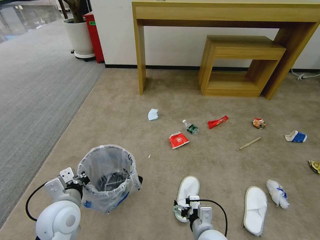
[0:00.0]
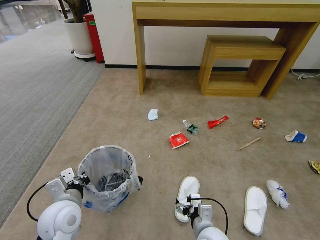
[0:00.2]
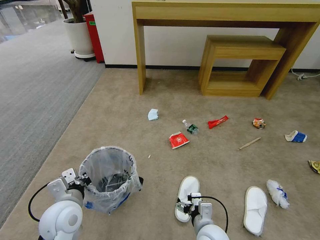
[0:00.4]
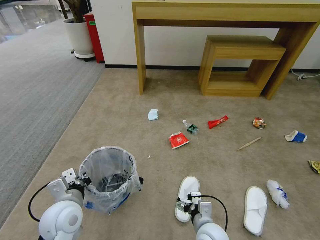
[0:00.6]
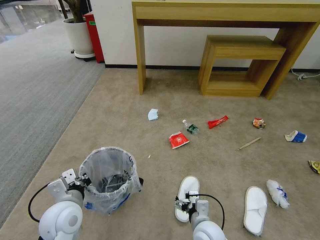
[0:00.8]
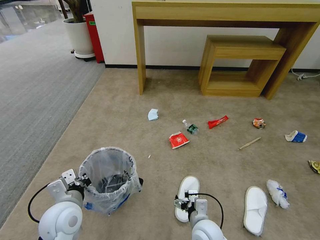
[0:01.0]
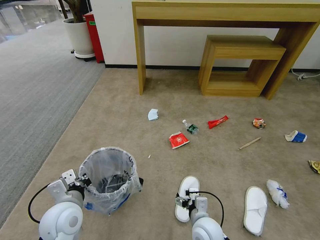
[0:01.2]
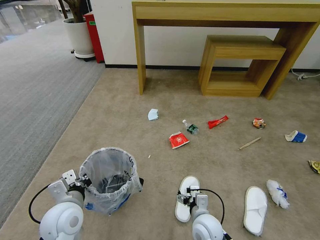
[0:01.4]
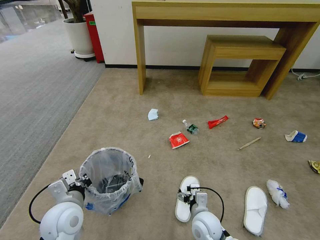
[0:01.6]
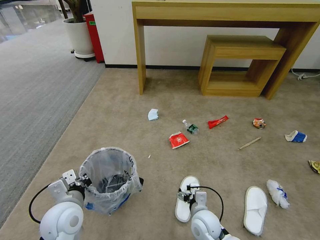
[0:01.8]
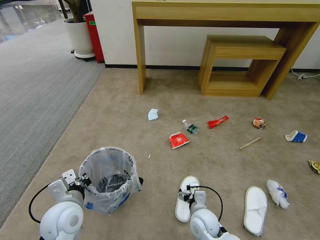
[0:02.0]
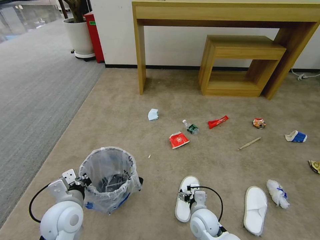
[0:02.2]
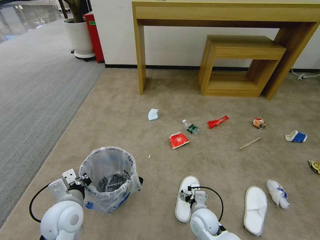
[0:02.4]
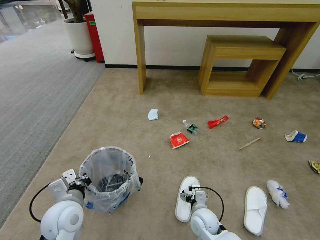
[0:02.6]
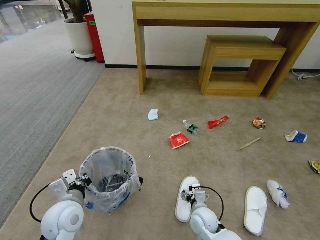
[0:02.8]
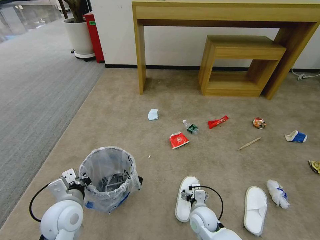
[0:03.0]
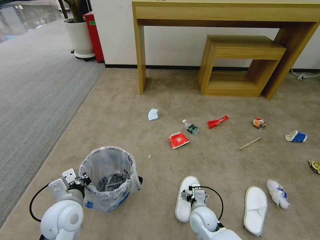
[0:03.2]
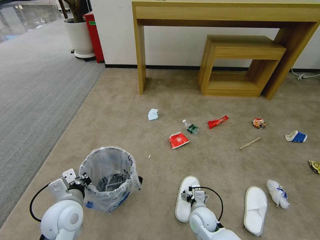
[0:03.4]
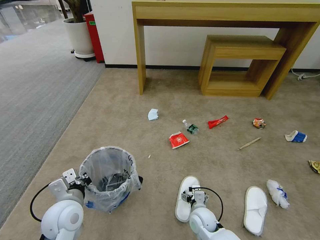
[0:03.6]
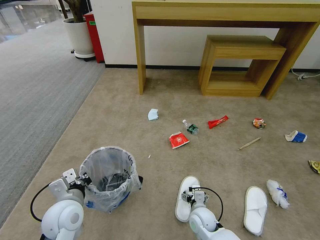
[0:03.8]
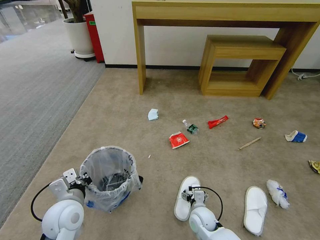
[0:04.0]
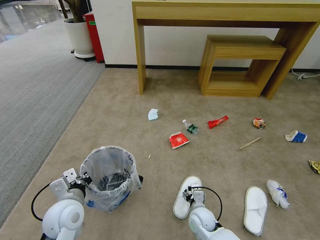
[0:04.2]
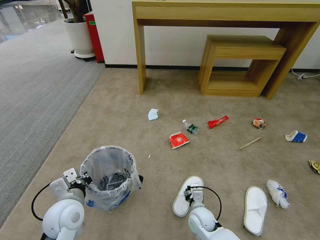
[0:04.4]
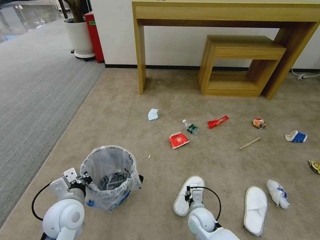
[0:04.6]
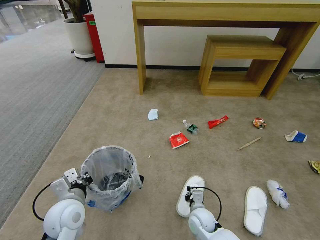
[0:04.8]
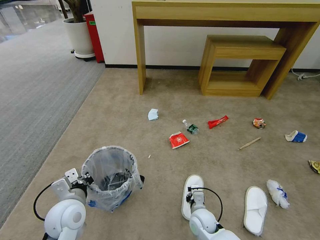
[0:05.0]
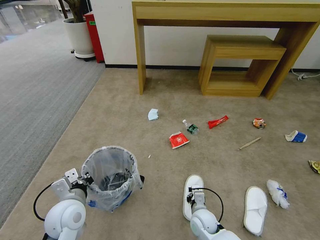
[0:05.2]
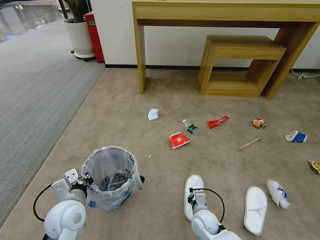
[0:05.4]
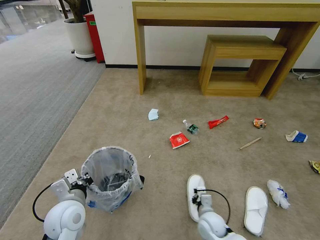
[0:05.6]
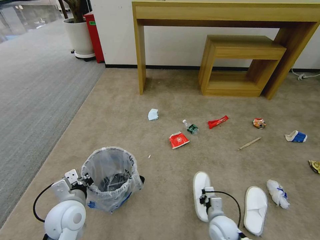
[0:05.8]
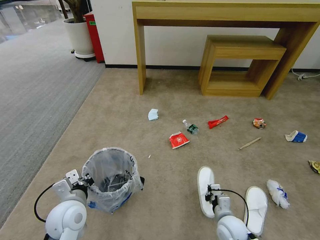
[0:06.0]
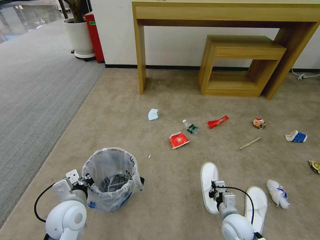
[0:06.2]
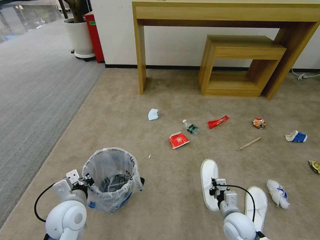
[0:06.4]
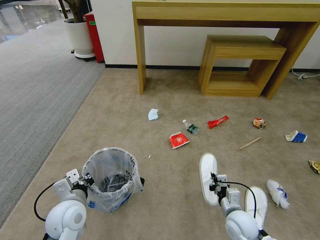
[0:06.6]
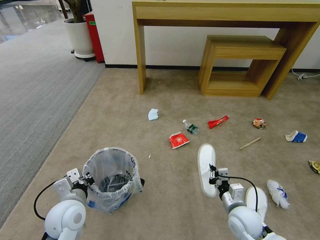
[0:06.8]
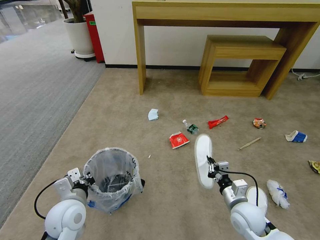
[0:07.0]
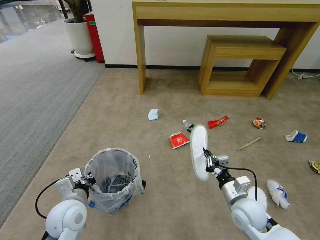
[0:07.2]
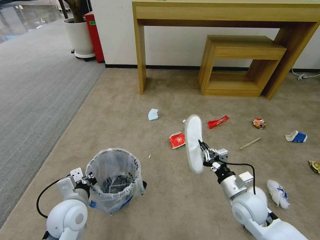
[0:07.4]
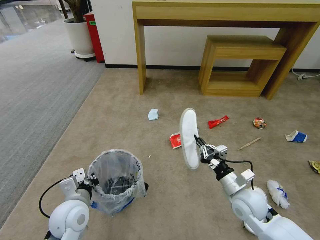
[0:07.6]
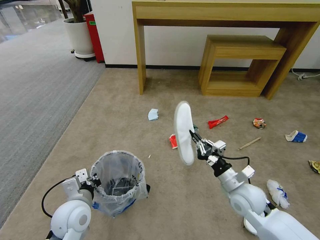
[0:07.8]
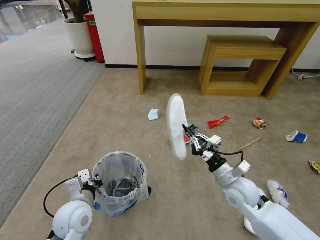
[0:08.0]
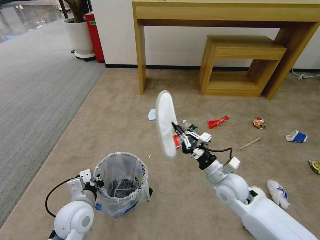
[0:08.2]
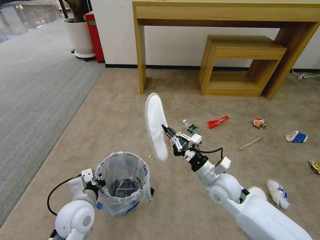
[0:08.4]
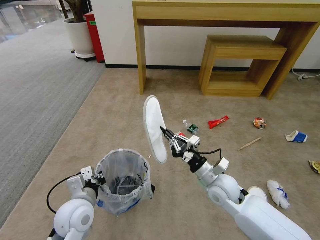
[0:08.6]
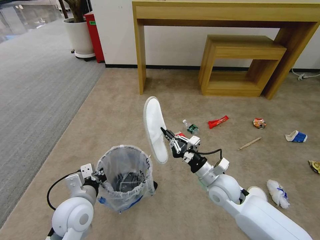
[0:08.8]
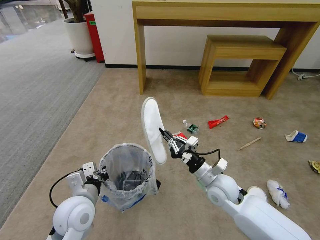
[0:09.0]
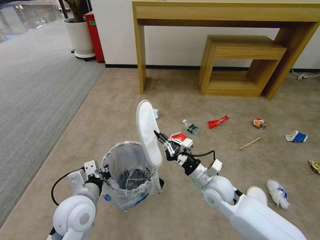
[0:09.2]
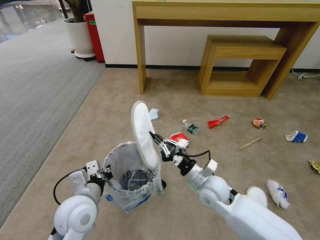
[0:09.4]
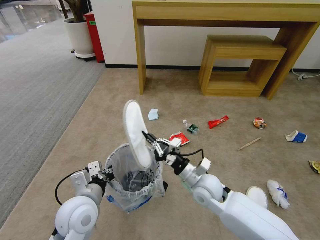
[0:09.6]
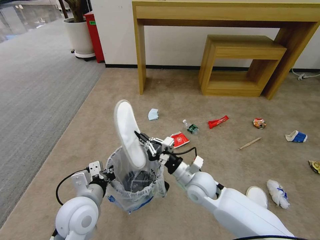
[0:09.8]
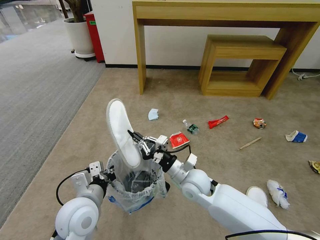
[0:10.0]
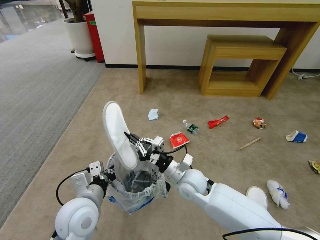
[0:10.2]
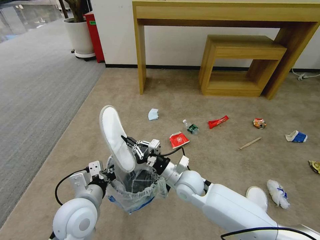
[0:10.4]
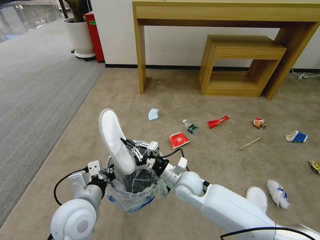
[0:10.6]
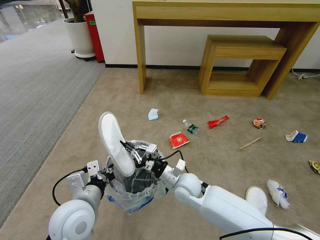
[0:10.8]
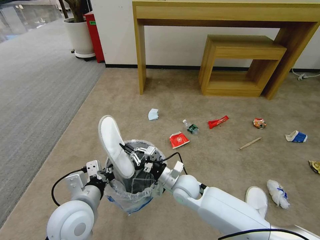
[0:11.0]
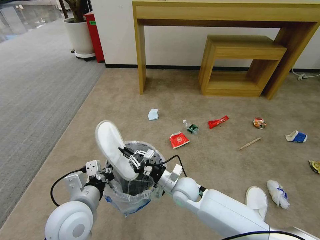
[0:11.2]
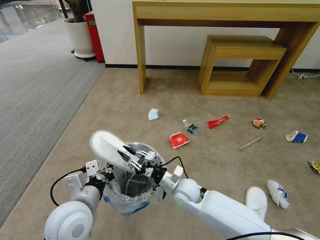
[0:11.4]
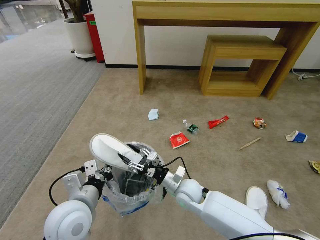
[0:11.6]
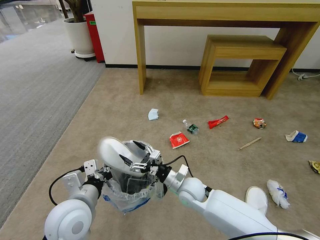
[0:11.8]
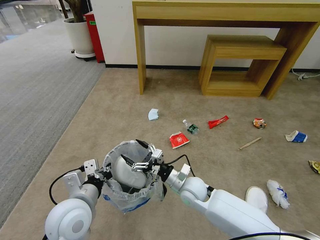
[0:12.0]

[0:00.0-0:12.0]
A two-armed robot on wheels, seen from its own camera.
Task of the whole recording: Pick up the trash bin and place the garbage on the floor into it.
0:00.0 to 0:01.6: The right gripper is displaced forward by some 5 cm.
0:01.6 to 0:03.0: The right gripper moves downward, some 5 cm.
0:03.0 to 0:04.4: The right gripper closes.
0:04.4 to 0:06.0: The right gripper is displaced to the right by about 10 cm, and closes up.
0:06.0 to 0:07.6: The right gripper travels upward by roughly 15 cm.
0:07.6 to 0:09.0: The right gripper goes some 10 cm to the left.
0:09.0 to 0:10.4: The right gripper moves to the left, some 10 cm.
0:10.4 to 0:12.0: The right gripper opens up.

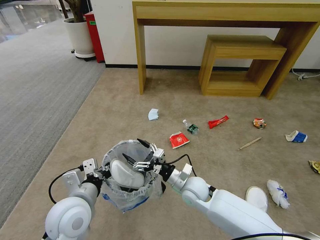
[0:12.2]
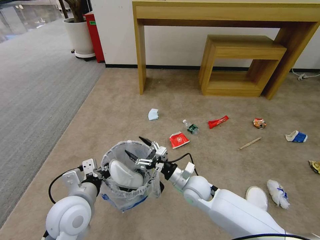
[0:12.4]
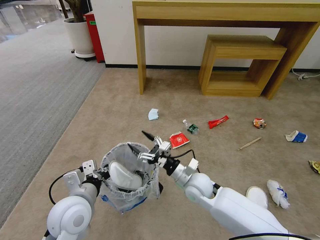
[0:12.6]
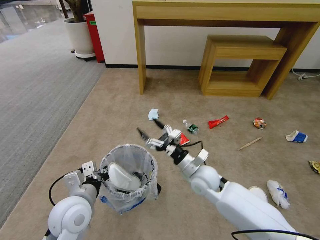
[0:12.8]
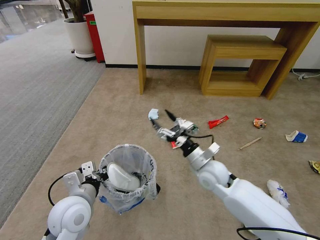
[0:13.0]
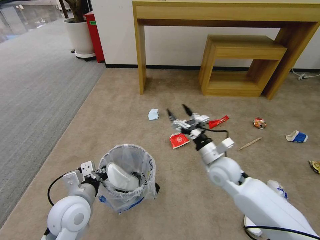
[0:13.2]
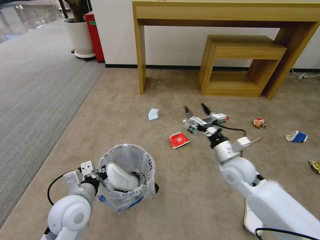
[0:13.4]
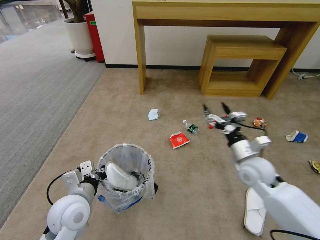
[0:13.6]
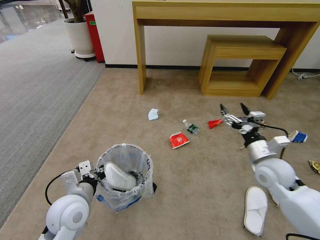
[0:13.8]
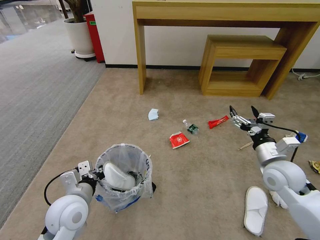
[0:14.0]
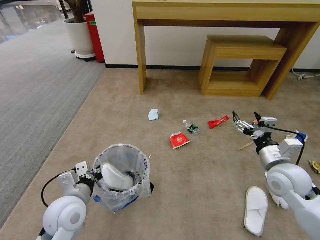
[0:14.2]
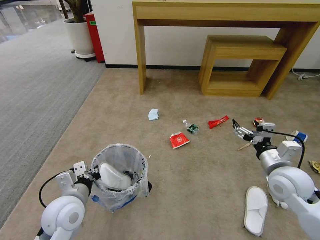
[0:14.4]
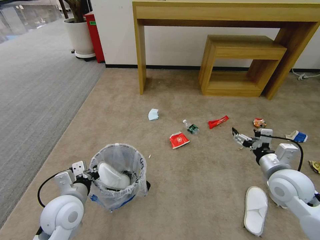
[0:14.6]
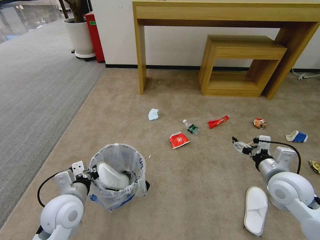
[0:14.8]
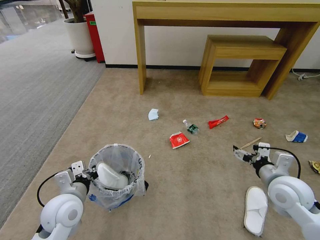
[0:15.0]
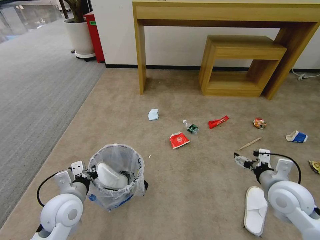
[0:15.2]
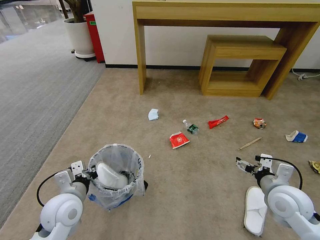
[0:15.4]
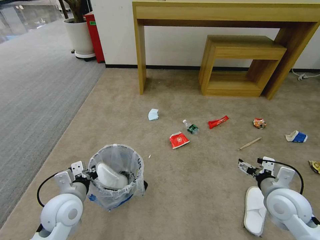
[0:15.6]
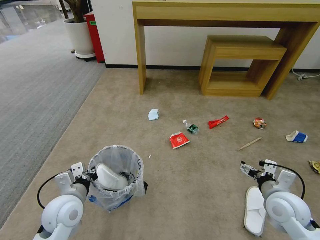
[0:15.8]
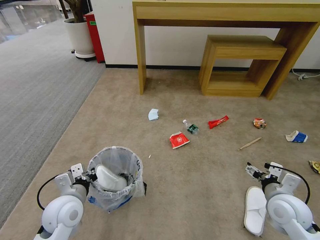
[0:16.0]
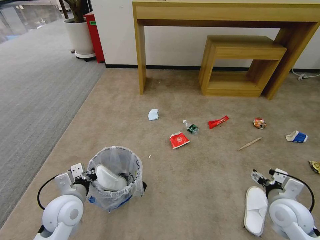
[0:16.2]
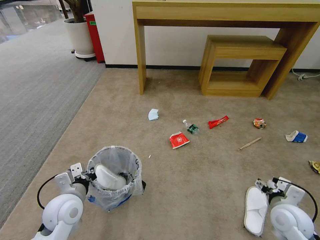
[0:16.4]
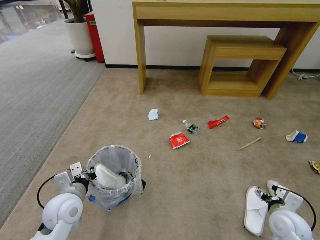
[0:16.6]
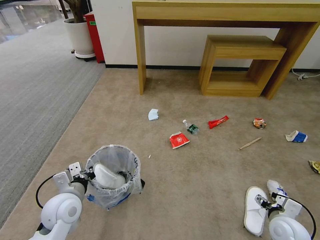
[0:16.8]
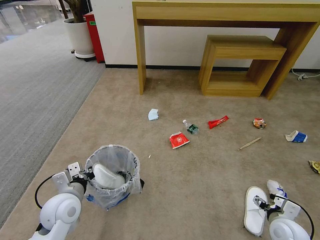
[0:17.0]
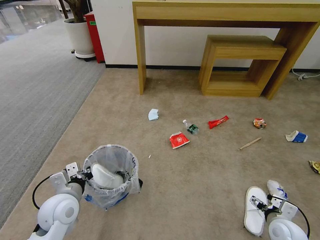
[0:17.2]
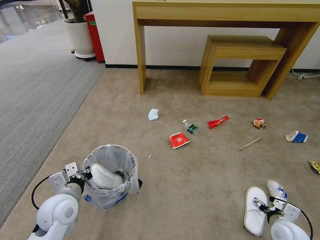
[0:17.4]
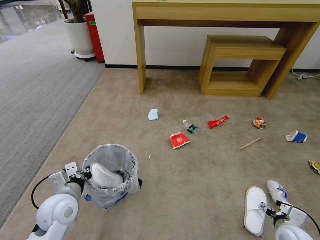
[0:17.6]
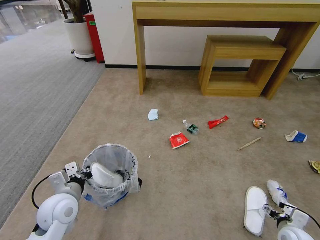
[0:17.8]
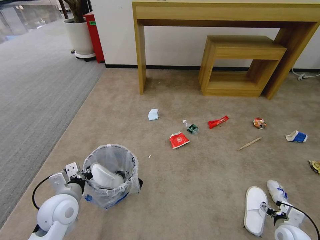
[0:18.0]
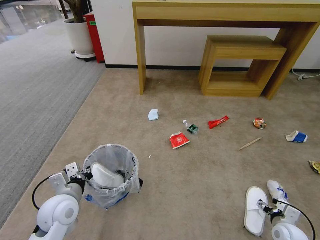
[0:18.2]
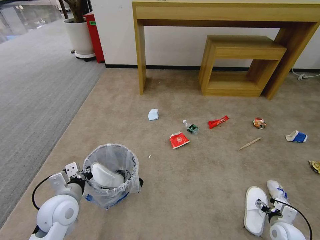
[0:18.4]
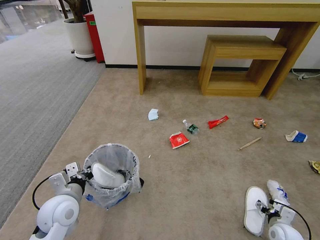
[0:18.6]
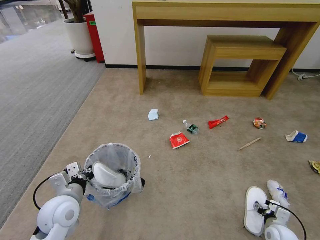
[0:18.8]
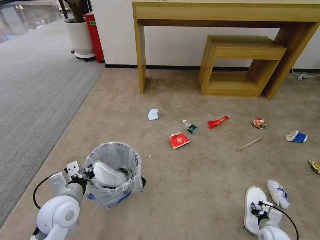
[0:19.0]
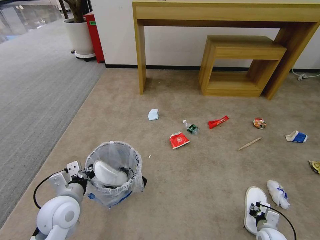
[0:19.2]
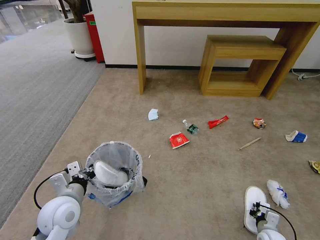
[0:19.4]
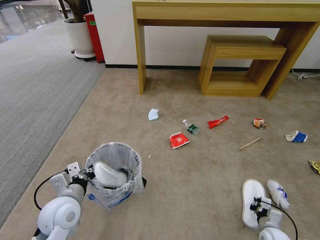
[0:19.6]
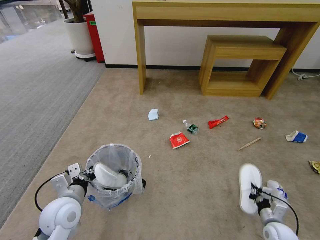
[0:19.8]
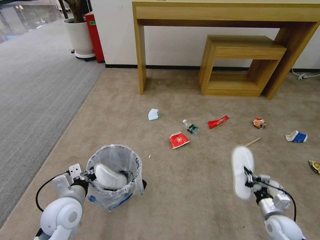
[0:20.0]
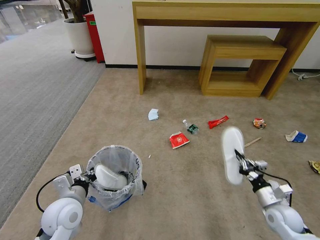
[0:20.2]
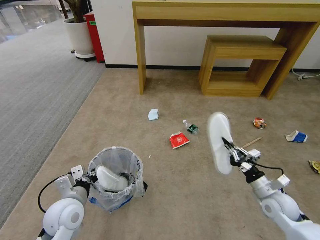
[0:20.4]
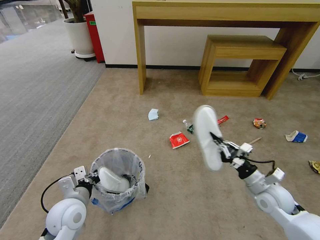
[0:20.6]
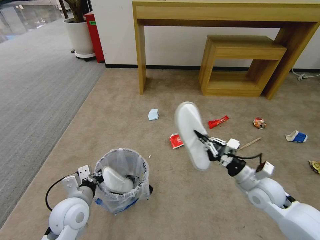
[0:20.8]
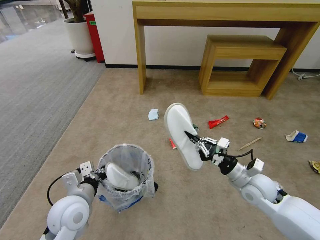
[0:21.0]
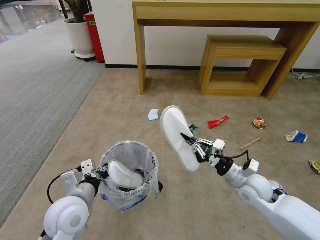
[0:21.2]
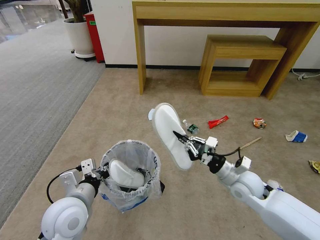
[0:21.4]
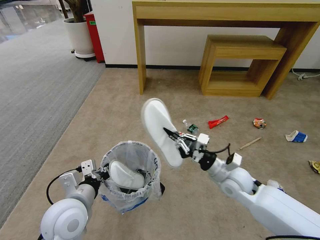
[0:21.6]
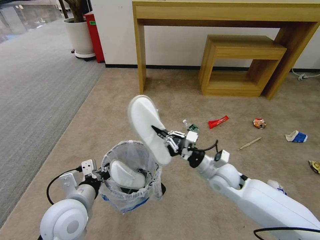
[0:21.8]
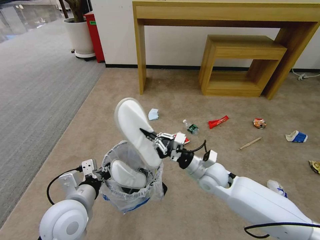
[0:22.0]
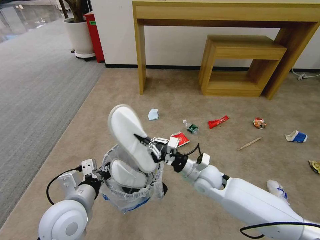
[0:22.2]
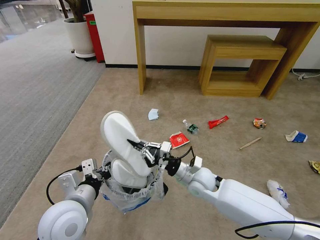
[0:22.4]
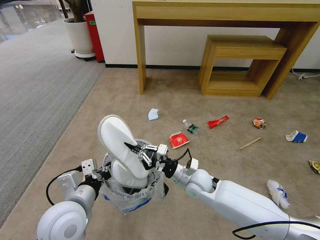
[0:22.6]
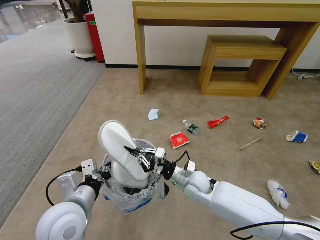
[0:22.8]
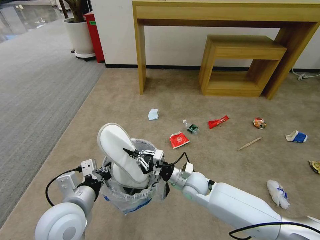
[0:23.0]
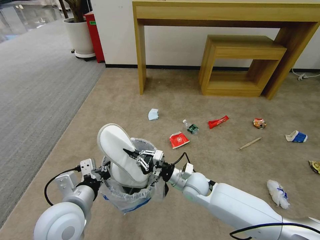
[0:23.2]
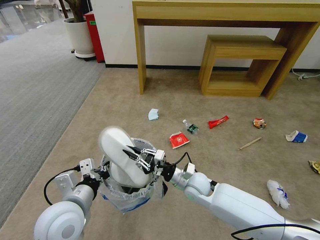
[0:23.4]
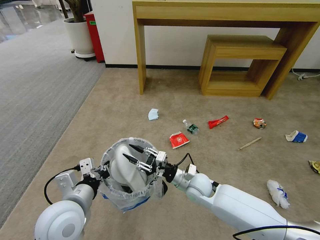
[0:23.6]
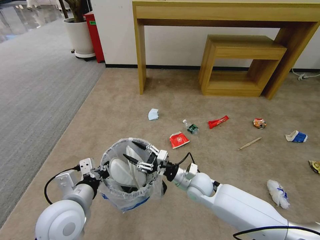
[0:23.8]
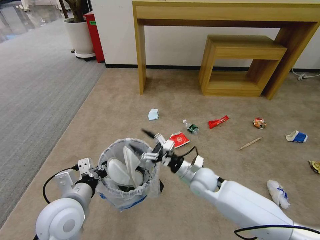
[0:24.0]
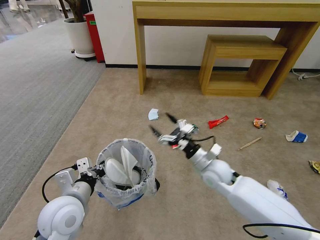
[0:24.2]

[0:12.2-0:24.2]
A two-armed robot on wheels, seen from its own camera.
Task of the whole recording: Pick up the trash bin and place the garbage on the floor into it.
0:12.2 to 0:13.8: The right gripper moves to the right and upward, roughly 25 cm.
0:13.8 to 0:15.2: The right gripper shifts approximately 10 cm backward.
0:15.2 to 0:16.6: The right gripper is displaced downward by approximately 10 cm.
0:16.6 to 0:18.2: The right gripper shifts some 15 cm downward and to the right.
0:18.2 to 0:19.8: The right gripper closes its fingers.
0:19.8 to 0:21.2: The left gripper ends up some 5 cm from where it was. The right gripper shifts roughly 25 cm upward, to the left and forward.
0:21.2 to 0:22.6: The right gripper moves to the left, roughly 15 cm.
0:22.6 to 0:24.2: The right gripper is displaced to the right by roughly 5 cm, and opens its fingers.
